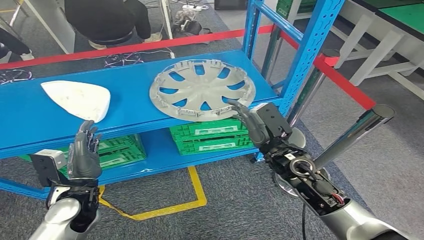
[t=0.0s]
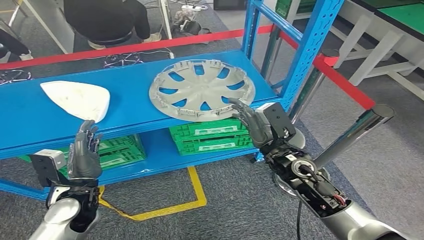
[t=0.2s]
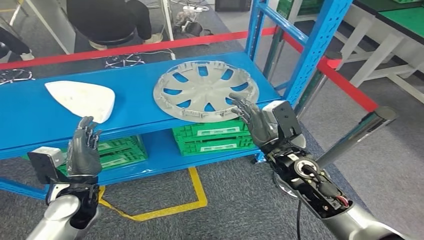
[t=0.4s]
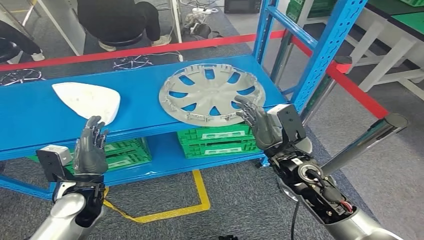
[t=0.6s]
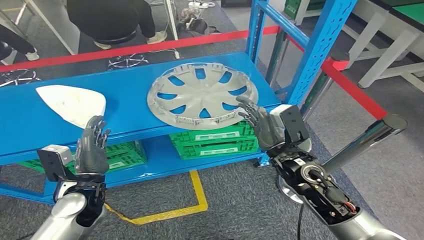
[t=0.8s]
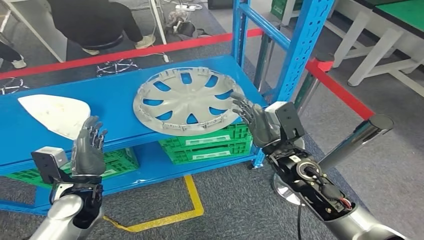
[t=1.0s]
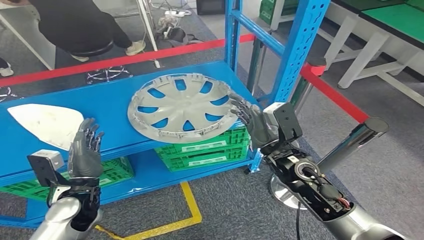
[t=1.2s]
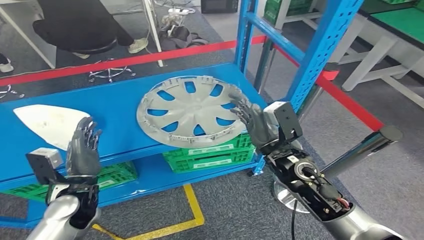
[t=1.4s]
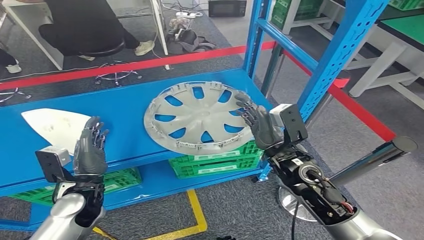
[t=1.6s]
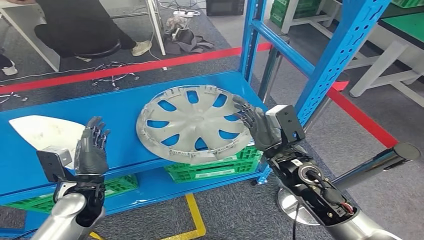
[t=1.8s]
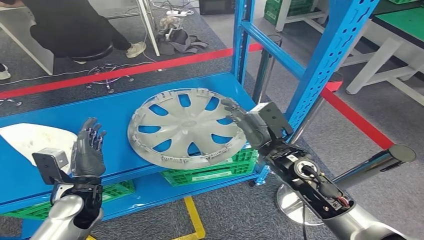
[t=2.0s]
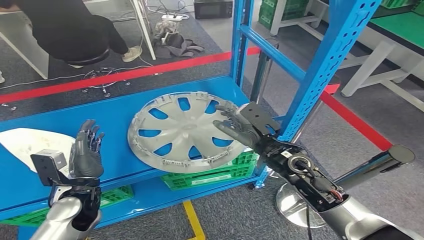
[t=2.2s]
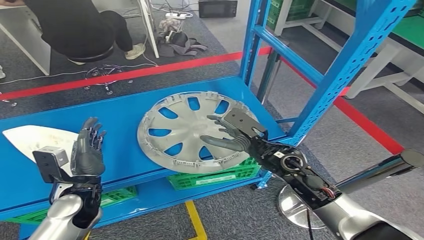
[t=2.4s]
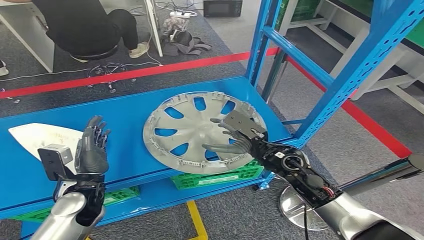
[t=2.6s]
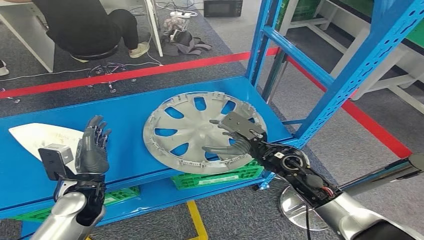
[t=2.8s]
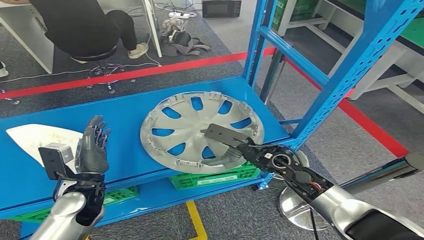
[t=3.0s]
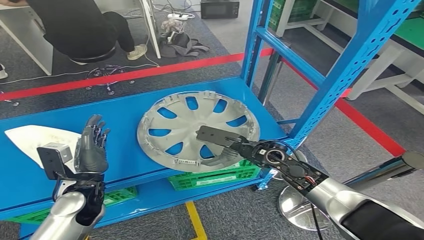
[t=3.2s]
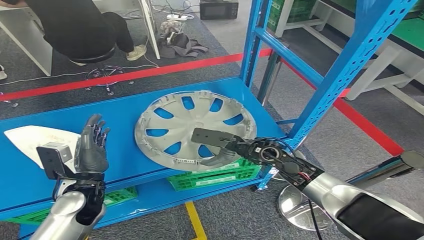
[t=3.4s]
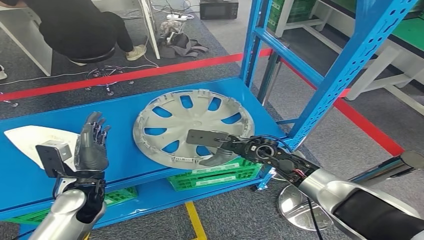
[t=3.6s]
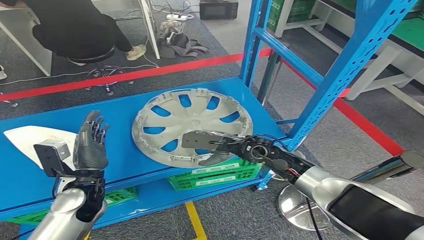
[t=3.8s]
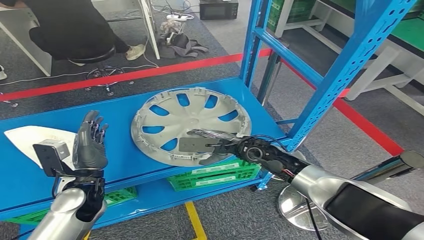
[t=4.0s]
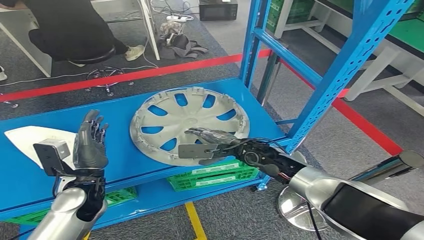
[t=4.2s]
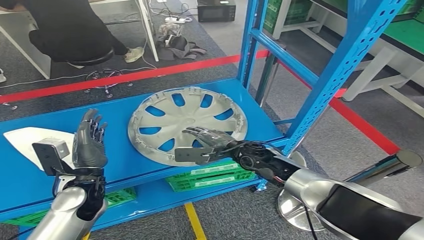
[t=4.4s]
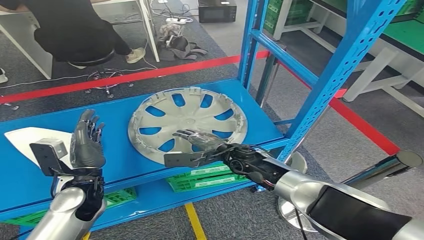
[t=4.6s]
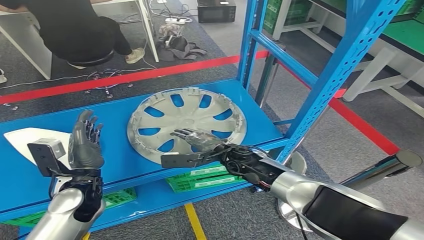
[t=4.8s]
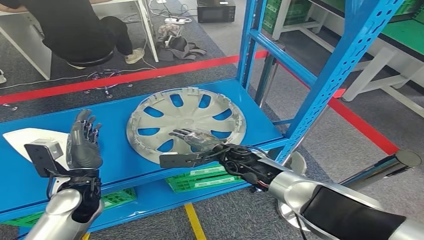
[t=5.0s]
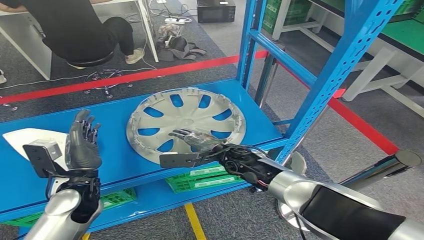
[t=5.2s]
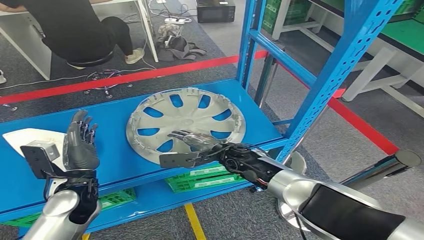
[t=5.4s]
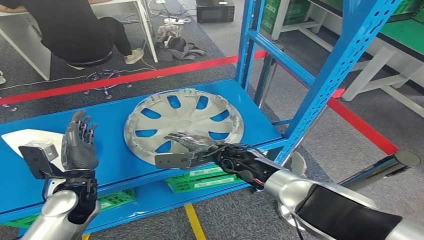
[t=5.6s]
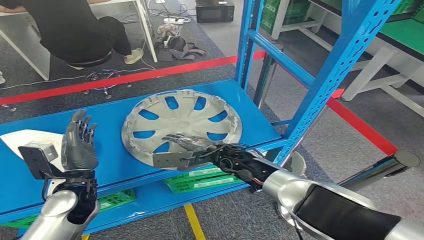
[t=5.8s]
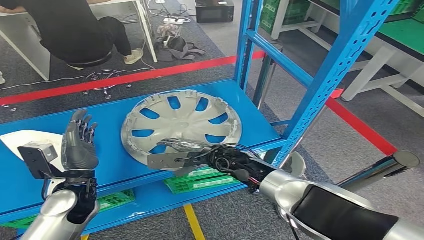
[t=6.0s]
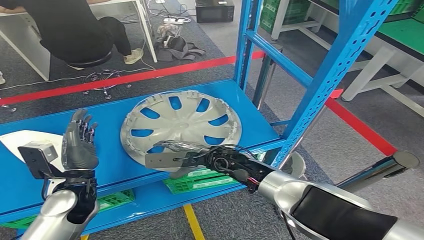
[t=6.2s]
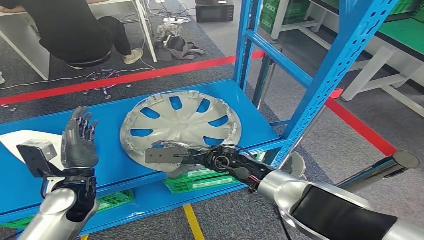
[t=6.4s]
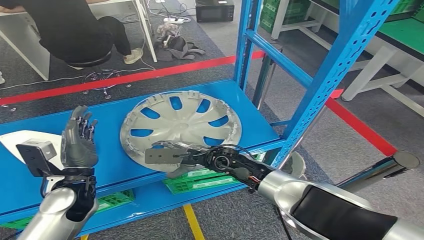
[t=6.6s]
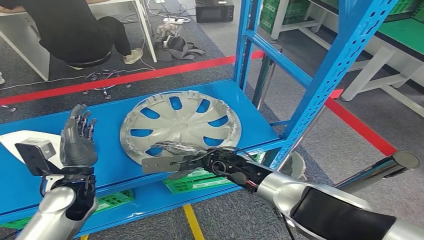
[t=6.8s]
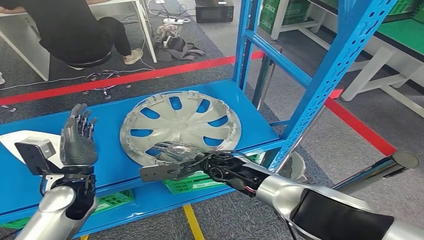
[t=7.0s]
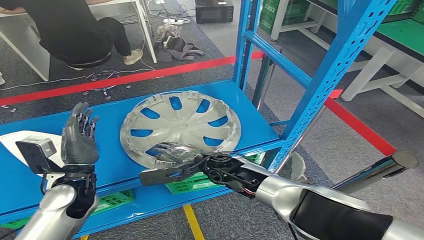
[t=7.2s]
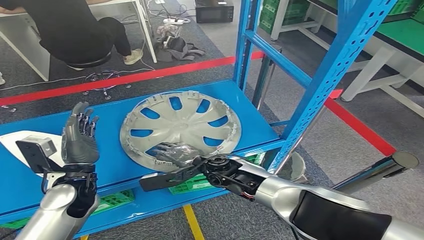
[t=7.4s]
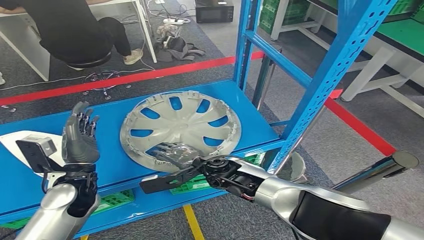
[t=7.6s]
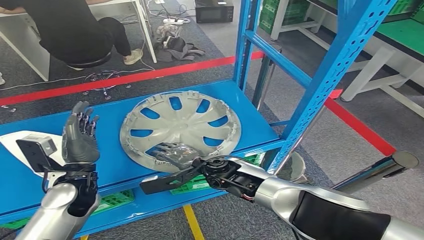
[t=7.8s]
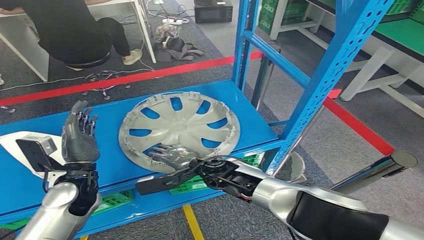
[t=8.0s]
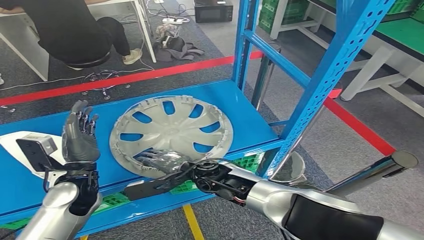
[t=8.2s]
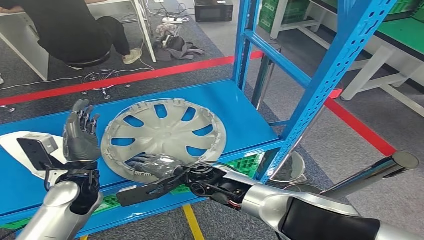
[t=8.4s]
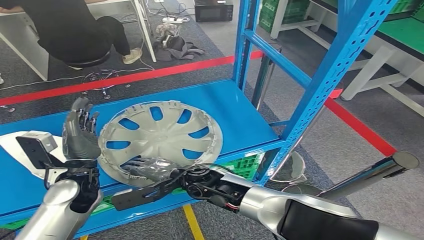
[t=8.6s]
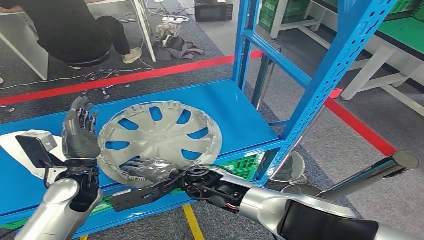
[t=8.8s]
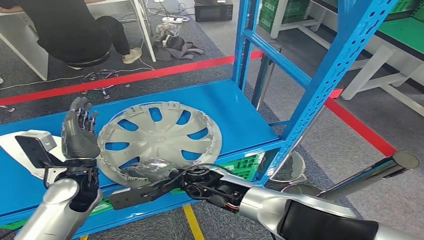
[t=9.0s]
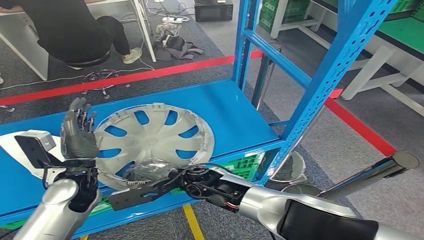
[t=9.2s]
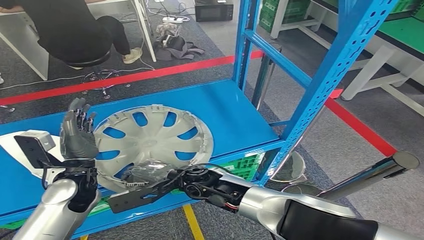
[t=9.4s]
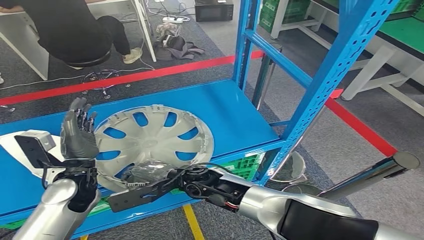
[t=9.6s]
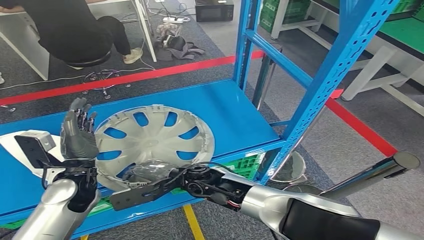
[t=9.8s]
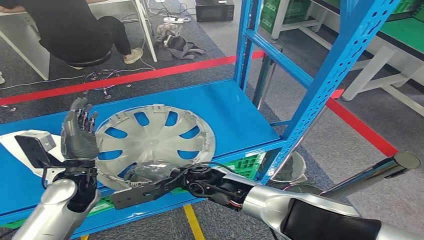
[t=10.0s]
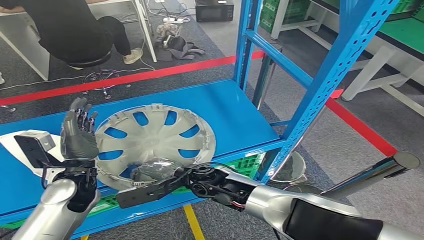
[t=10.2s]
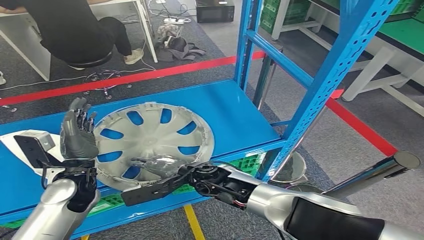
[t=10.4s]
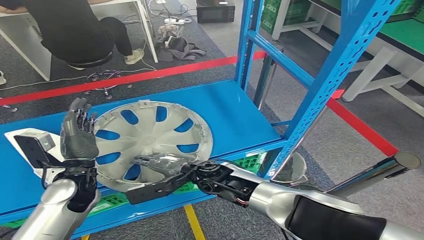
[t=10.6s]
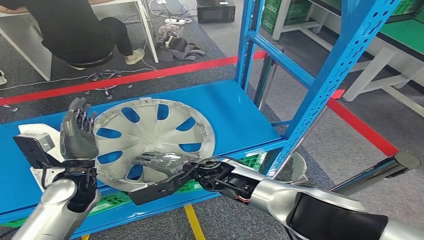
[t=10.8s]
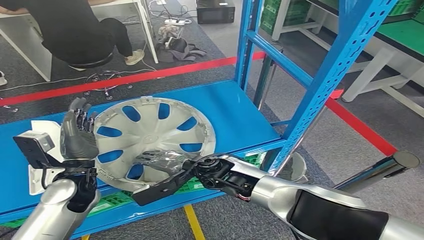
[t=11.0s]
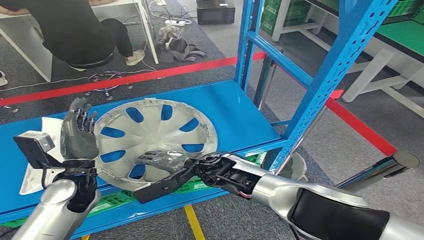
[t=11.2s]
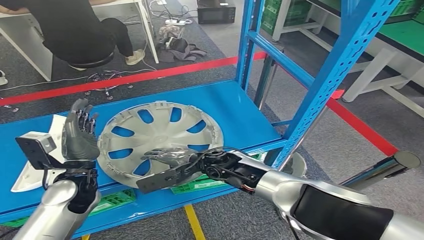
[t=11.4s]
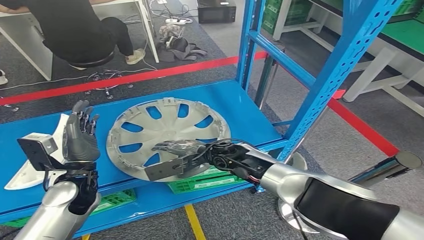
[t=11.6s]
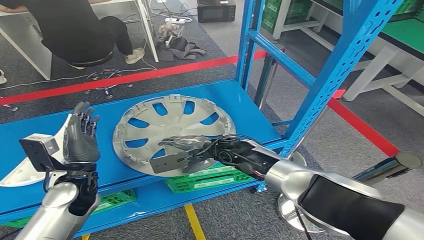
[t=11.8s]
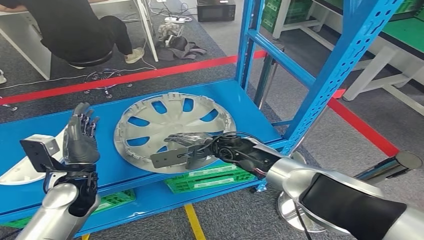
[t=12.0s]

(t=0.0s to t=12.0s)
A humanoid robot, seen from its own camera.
t=9.0s - t=10.4s: The right hand ends up about 5 cm from where it was.

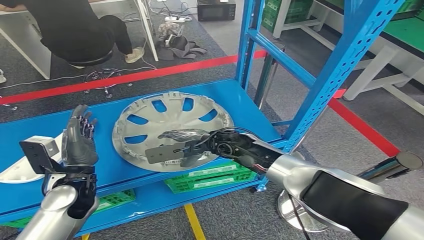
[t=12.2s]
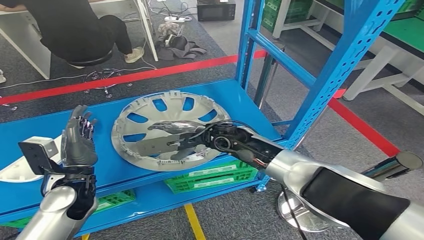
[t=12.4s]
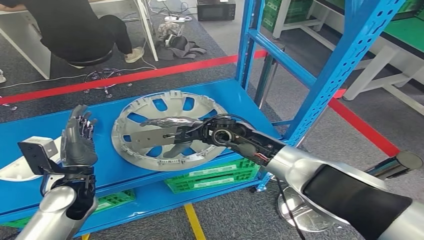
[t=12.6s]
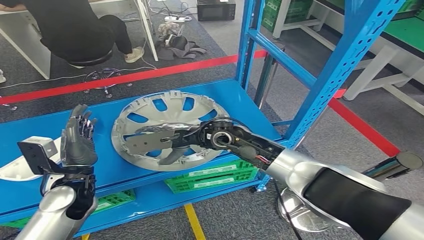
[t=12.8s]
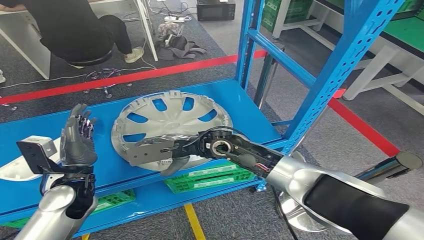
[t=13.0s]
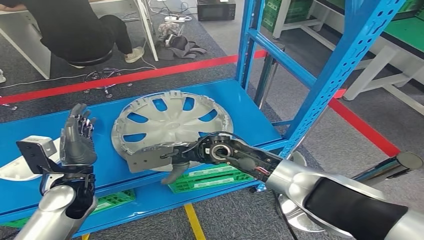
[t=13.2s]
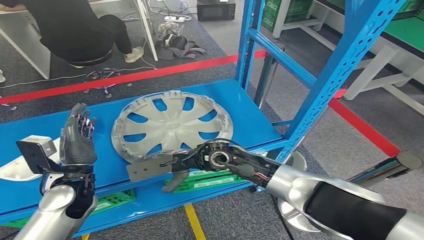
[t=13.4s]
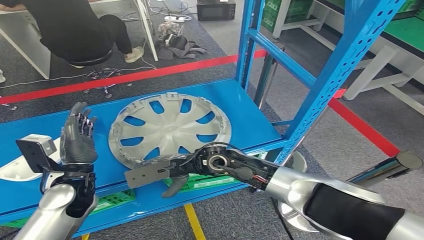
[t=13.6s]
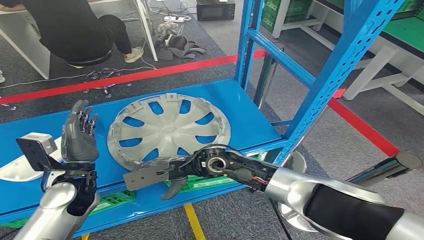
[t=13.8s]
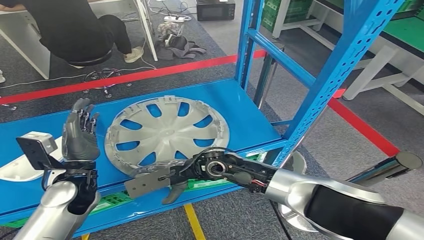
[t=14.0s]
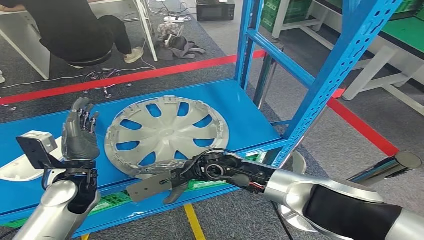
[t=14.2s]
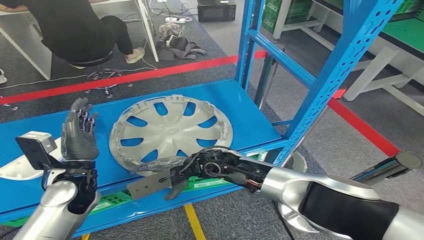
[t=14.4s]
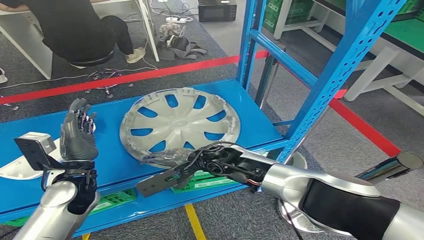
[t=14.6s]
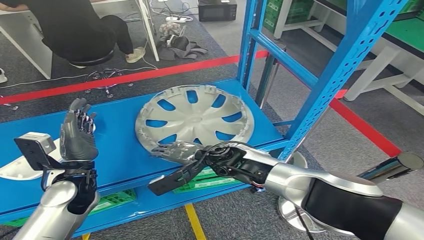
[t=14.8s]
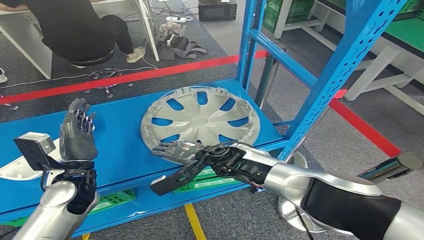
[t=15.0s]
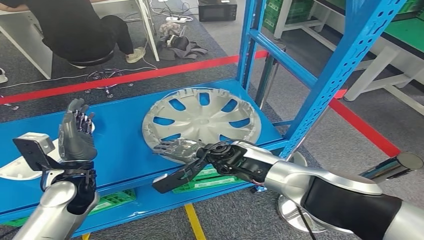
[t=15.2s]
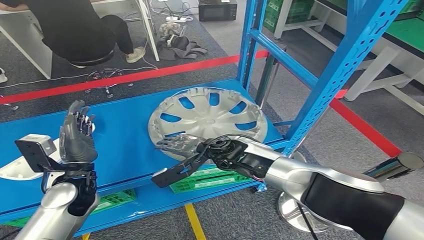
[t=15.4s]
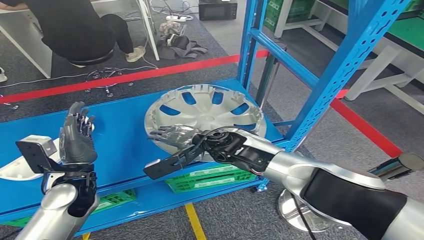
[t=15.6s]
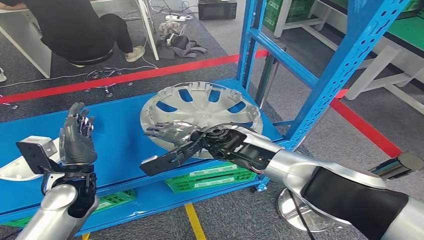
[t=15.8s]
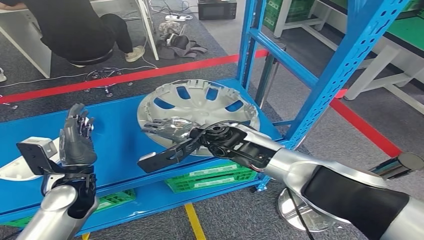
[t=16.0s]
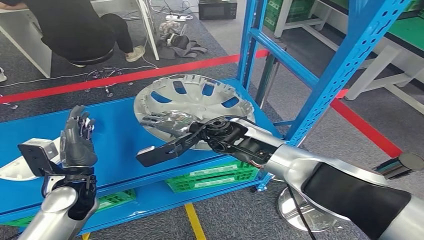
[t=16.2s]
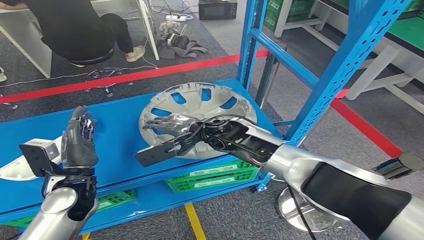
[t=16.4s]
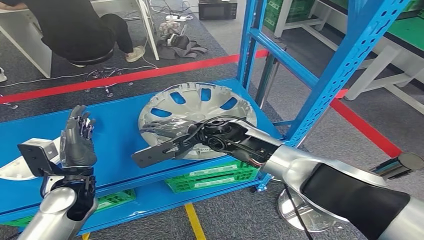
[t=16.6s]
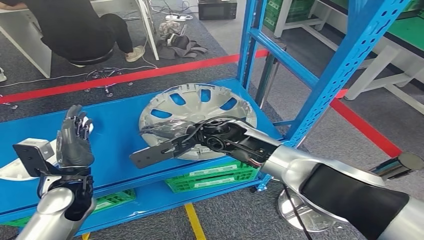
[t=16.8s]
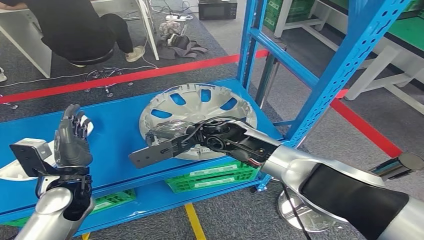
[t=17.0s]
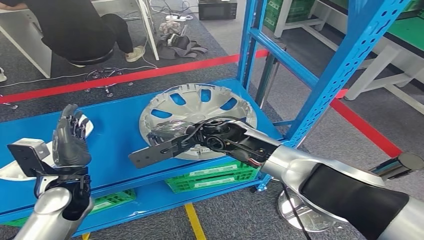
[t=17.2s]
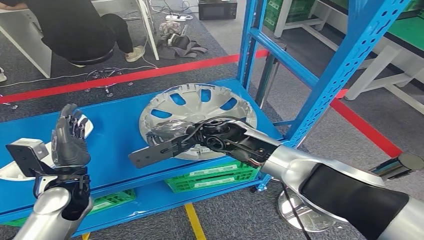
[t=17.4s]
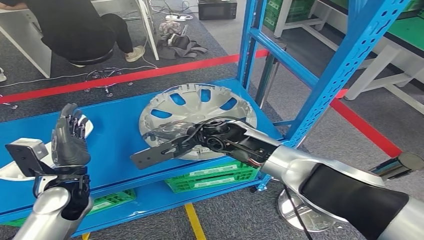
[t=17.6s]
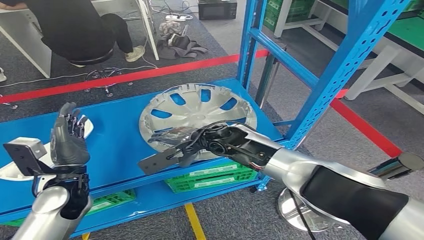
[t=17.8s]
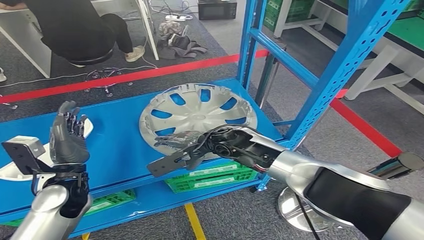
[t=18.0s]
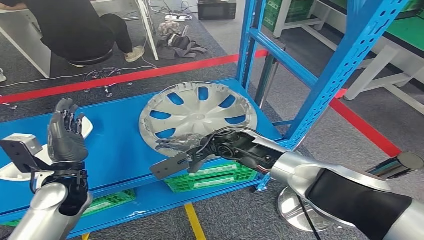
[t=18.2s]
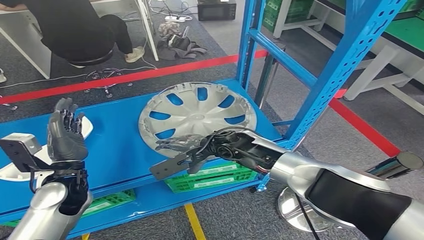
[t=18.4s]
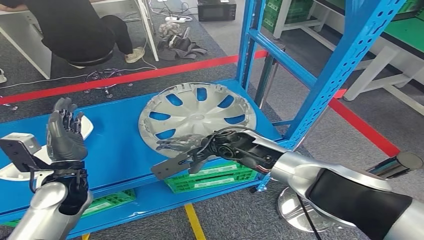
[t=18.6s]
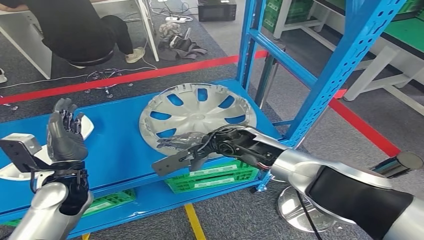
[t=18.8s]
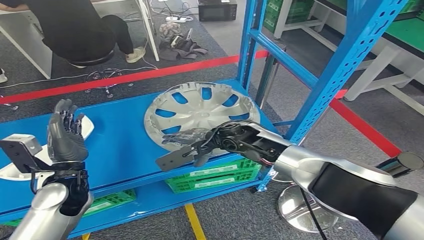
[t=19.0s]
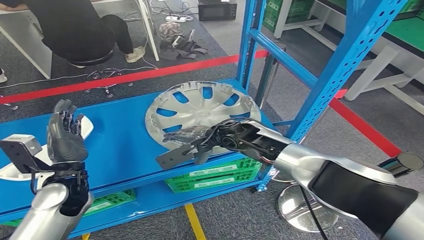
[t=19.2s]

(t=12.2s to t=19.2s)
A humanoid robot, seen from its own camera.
t=12.2s - t=13.6s: The right hand moves roughly 5 cm.
t=13.6s - t=15.0s: The right hand shifts by roughly 5 cm.
t=16.4s - t=17.8s: The hands make only small movements.
t=17.8s - t=19.2s: The hands make only small movements.
